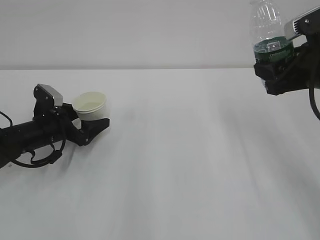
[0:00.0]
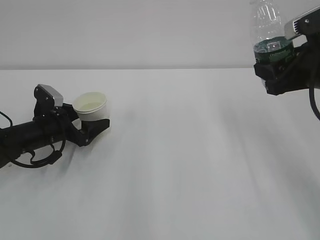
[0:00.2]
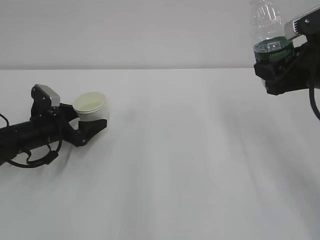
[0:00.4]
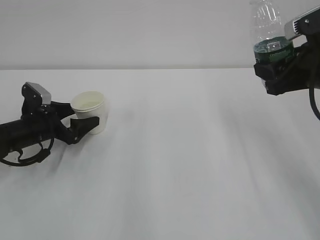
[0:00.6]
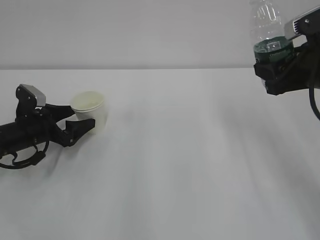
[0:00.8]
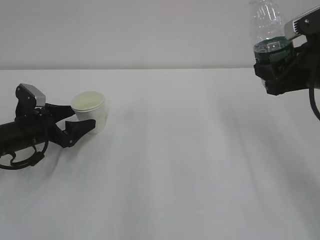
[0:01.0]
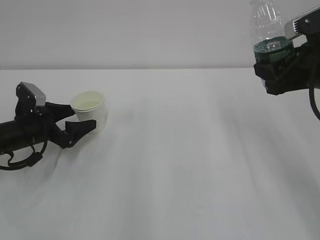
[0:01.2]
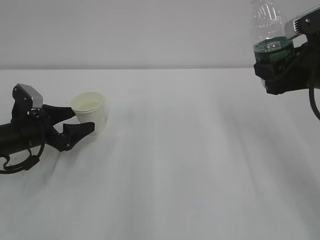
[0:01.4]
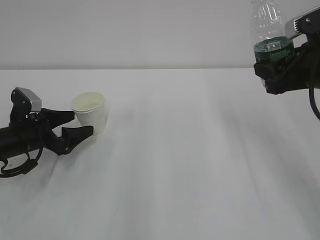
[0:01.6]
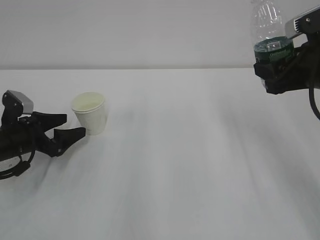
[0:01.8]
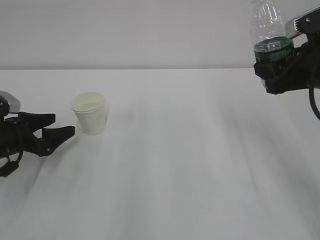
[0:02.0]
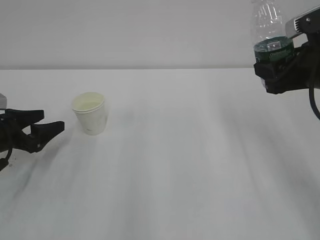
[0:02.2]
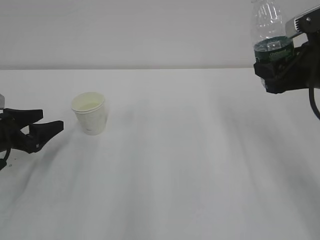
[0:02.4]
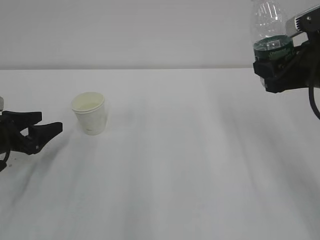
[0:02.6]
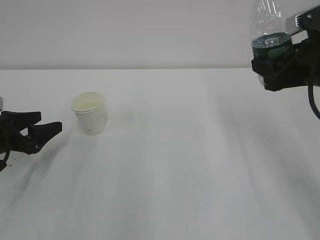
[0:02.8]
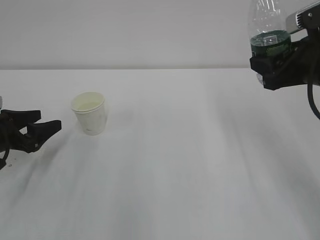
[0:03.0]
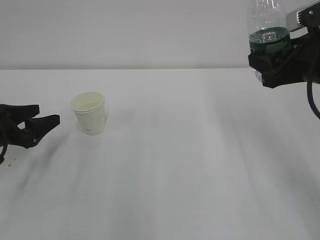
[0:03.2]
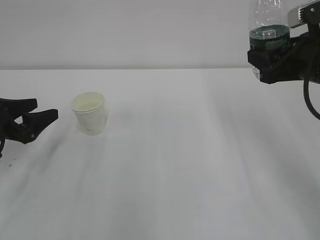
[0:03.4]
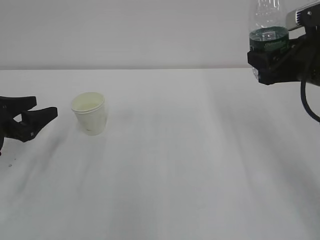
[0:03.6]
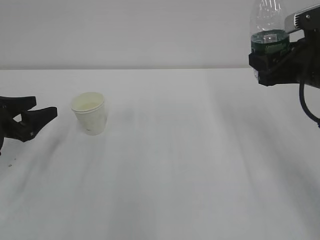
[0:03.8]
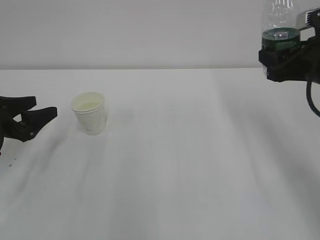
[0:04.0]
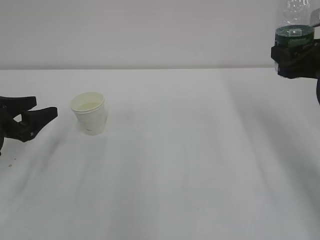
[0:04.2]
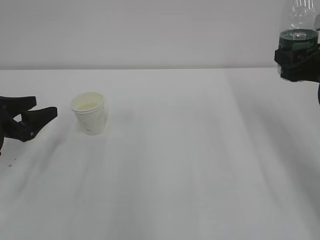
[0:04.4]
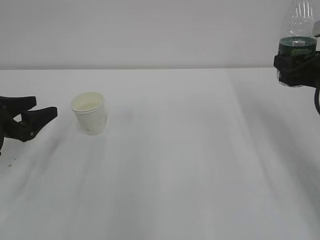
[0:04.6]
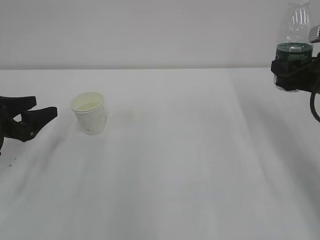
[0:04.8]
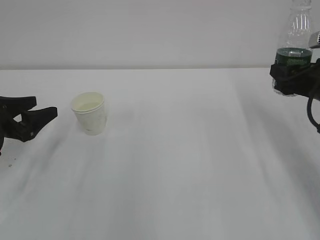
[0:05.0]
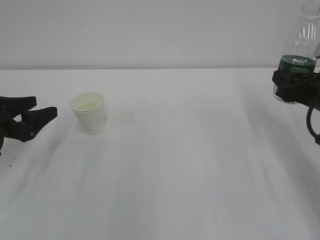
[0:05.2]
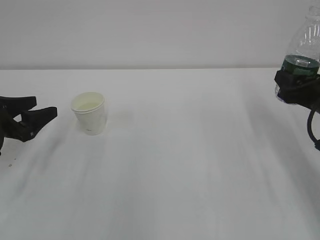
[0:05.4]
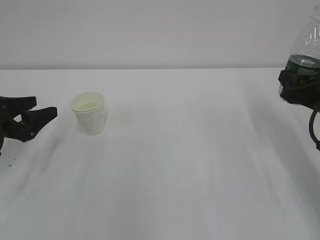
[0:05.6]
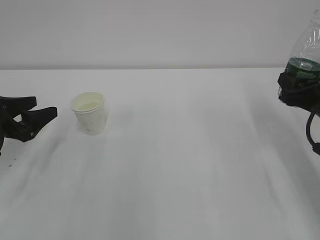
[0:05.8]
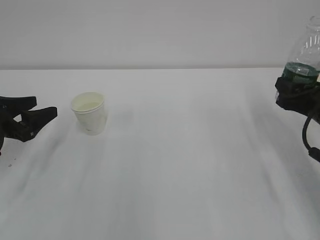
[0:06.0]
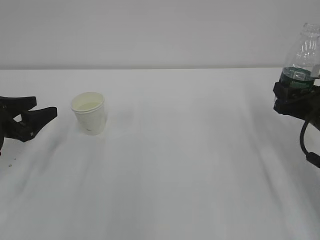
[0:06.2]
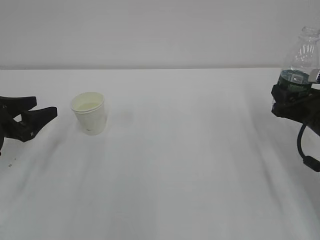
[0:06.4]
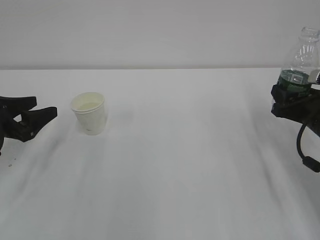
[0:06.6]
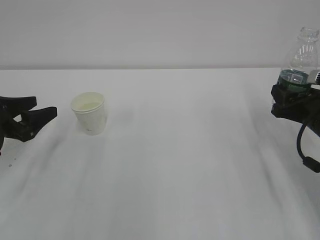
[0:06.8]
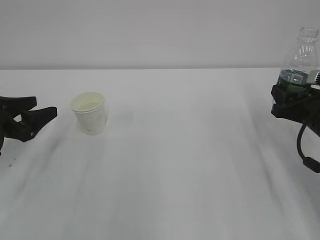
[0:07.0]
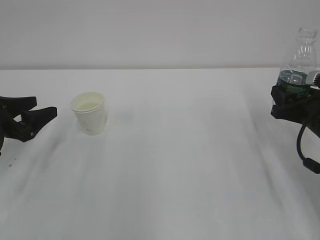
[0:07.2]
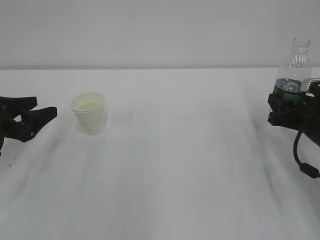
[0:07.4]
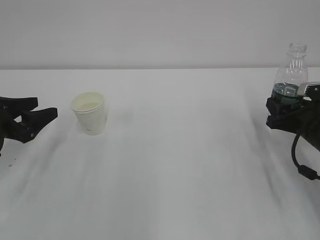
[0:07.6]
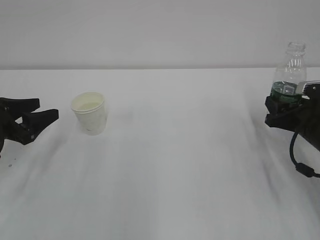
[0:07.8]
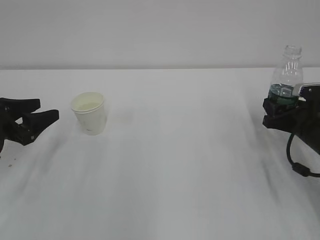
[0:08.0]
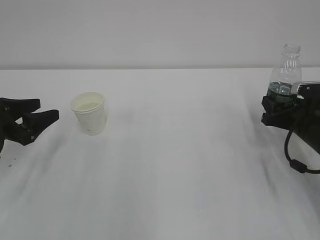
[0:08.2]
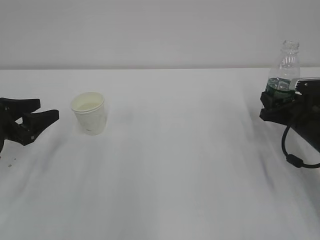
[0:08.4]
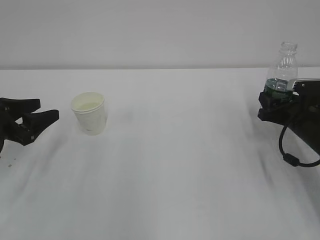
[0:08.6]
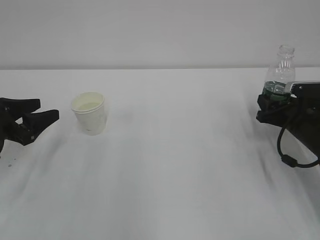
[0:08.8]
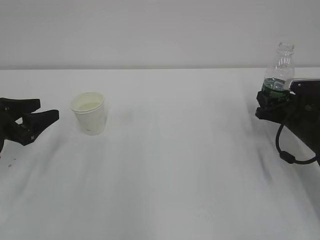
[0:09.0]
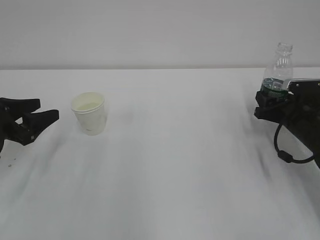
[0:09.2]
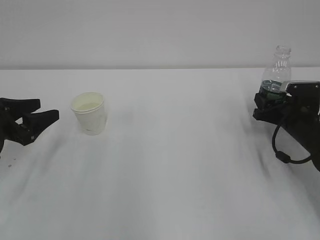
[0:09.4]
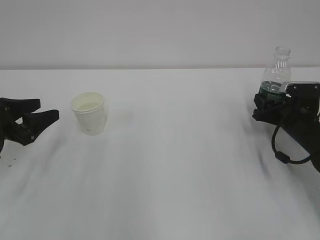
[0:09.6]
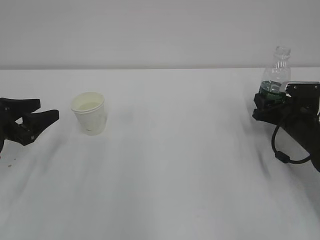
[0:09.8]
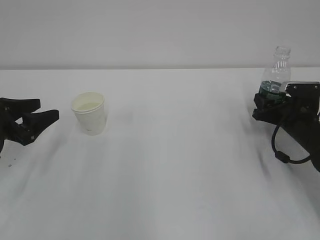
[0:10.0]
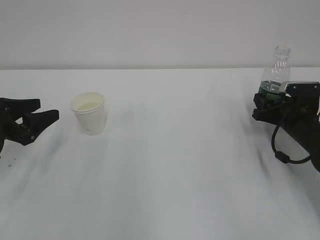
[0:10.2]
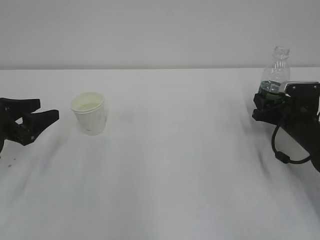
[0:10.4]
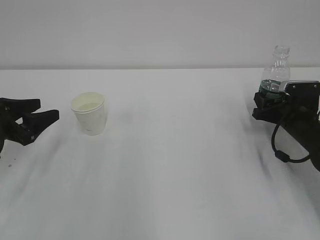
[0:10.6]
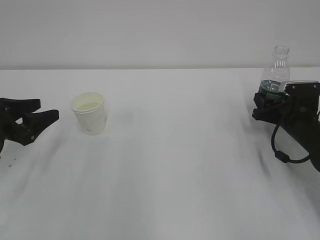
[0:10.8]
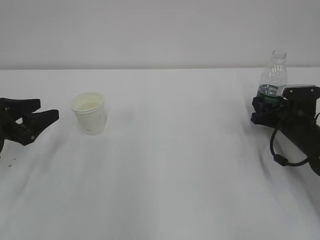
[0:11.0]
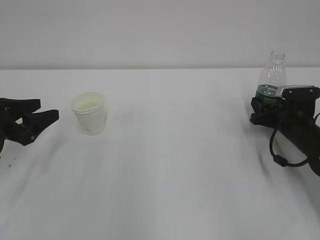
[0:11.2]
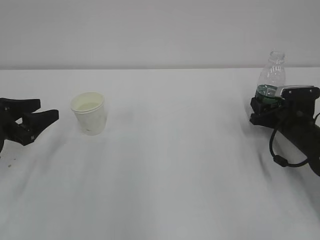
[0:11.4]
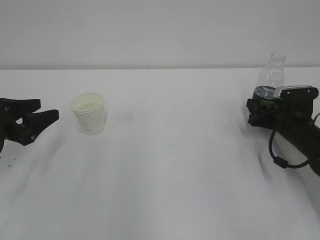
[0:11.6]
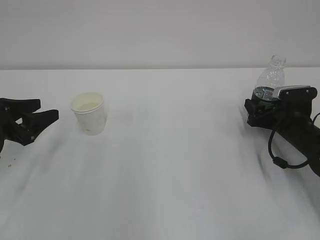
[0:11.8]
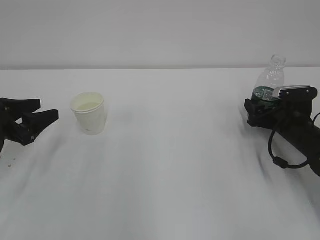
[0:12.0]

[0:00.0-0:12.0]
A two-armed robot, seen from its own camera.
0:00.0 to 0:01.6: The grippers move only a little.
0:01.6 to 0:03.0: The left gripper ends up some 5 cm from where it was.
0:03.0 to 0:04.4: The right gripper changes place by some 5 cm.
0:04.4 to 0:06.0: The right gripper shifts about 10 cm downward.
0:06.0 to 0:07.6: The grippers stay close to where they were, moving slightly.
0:07.6 to 0:09.0: The right gripper shifts by roughly 5 cm.
0:09.0 to 0:10.4: The grippers move only a little.
0:10.4 to 0:12.0: The right gripper opens its fingers.

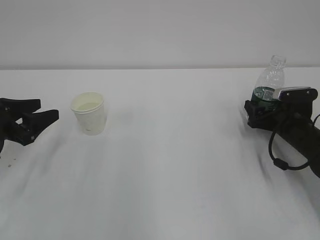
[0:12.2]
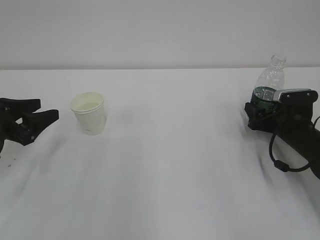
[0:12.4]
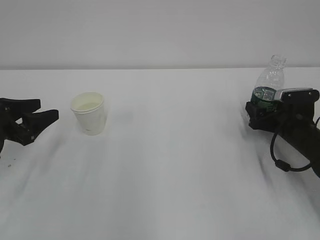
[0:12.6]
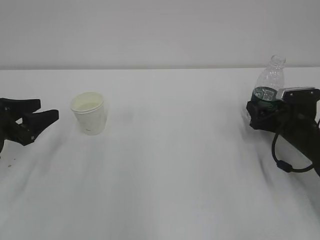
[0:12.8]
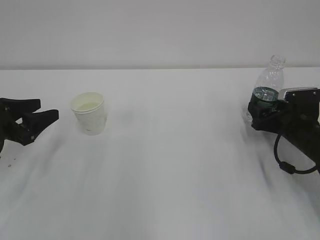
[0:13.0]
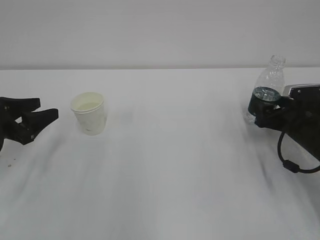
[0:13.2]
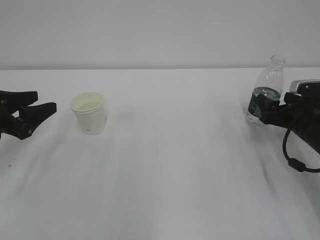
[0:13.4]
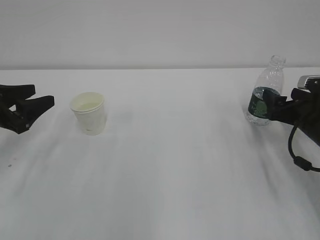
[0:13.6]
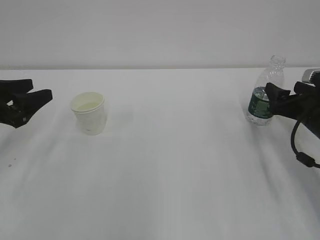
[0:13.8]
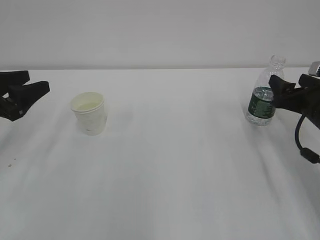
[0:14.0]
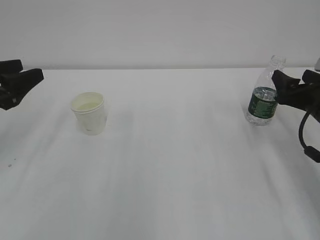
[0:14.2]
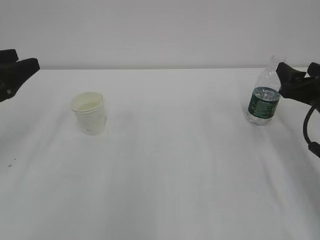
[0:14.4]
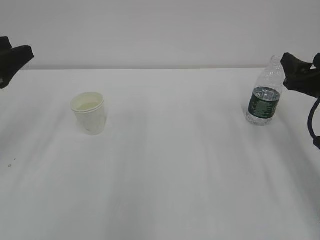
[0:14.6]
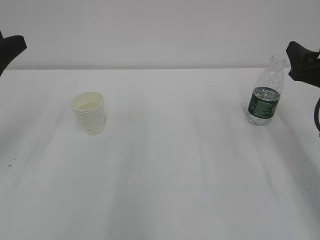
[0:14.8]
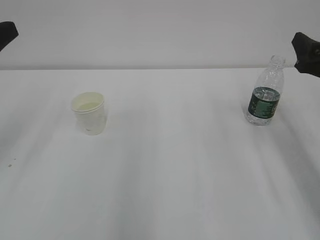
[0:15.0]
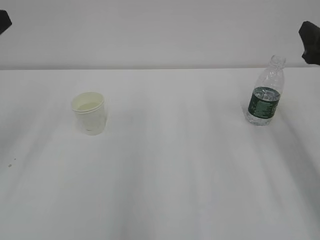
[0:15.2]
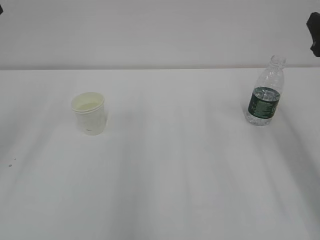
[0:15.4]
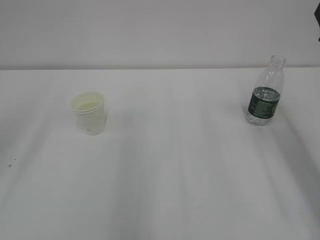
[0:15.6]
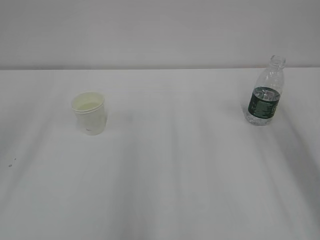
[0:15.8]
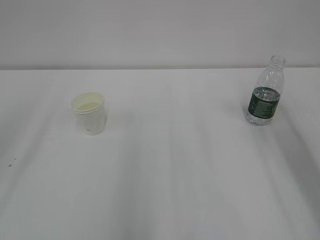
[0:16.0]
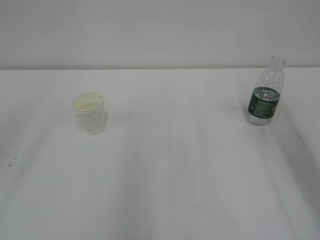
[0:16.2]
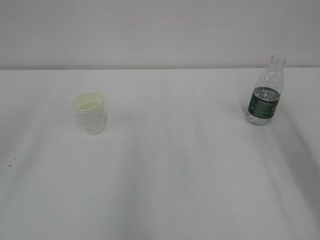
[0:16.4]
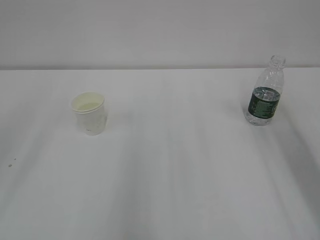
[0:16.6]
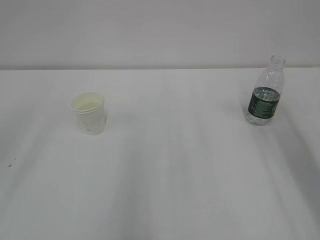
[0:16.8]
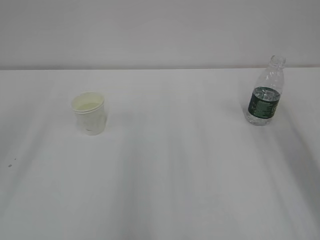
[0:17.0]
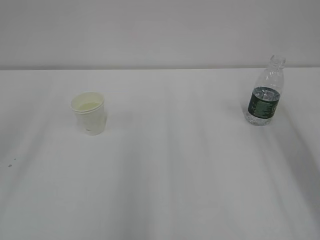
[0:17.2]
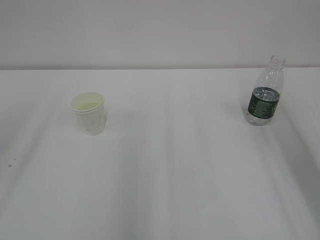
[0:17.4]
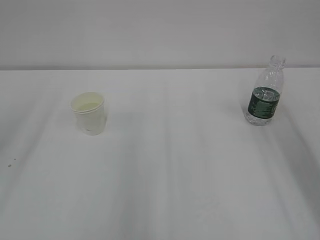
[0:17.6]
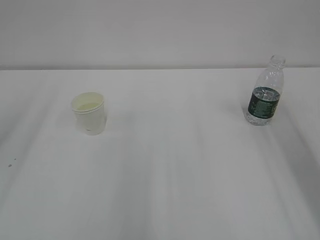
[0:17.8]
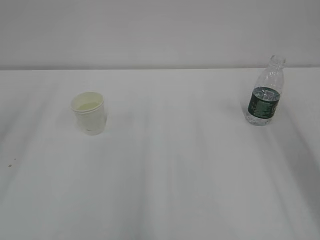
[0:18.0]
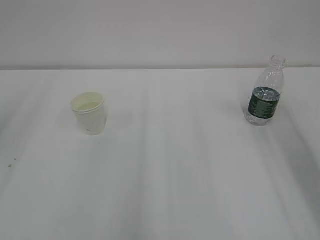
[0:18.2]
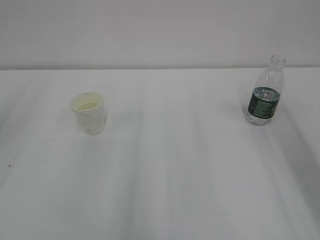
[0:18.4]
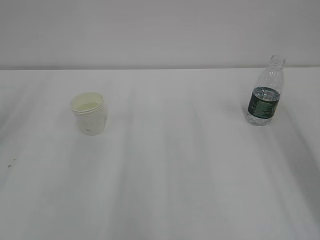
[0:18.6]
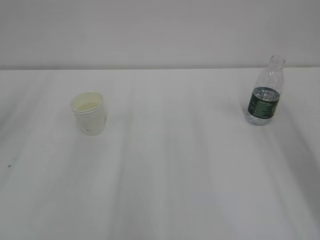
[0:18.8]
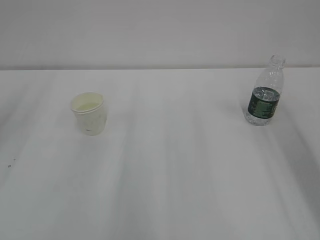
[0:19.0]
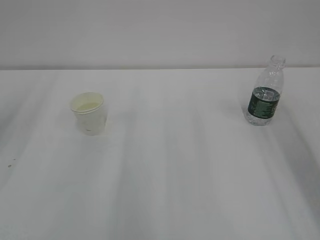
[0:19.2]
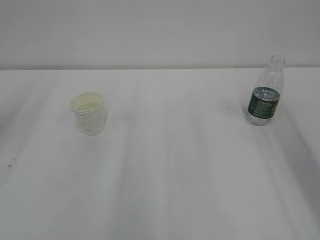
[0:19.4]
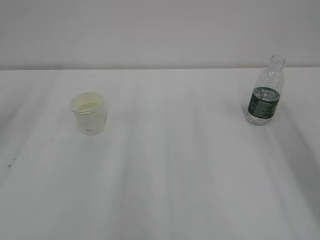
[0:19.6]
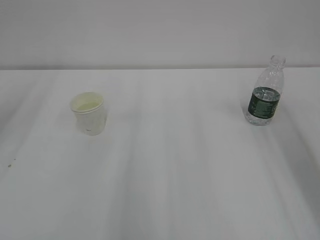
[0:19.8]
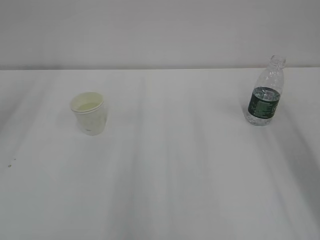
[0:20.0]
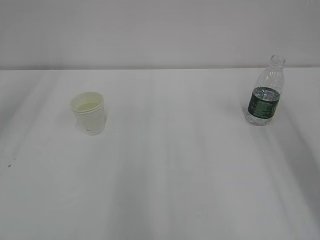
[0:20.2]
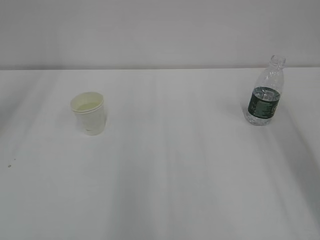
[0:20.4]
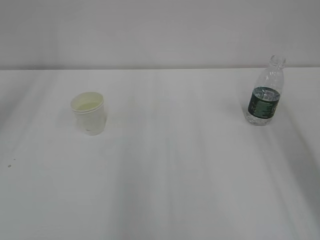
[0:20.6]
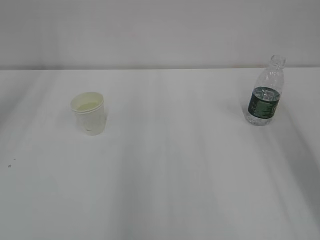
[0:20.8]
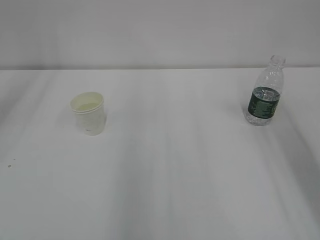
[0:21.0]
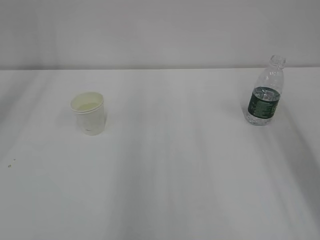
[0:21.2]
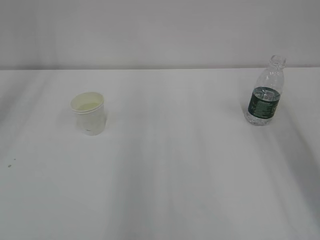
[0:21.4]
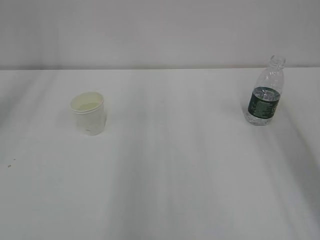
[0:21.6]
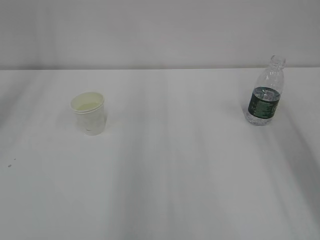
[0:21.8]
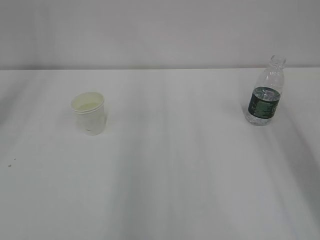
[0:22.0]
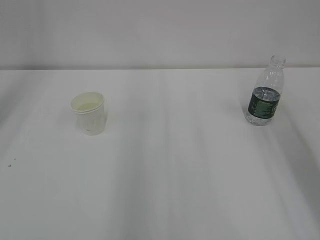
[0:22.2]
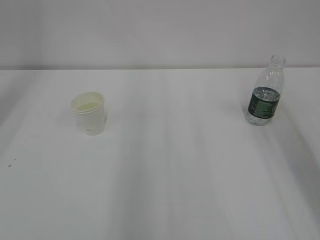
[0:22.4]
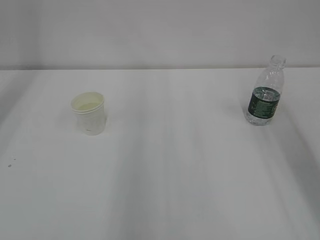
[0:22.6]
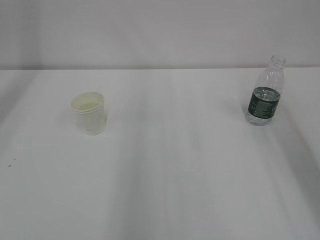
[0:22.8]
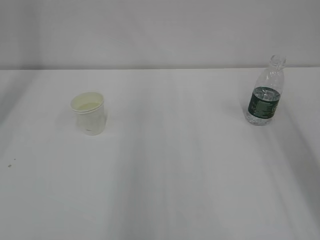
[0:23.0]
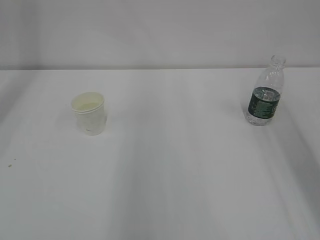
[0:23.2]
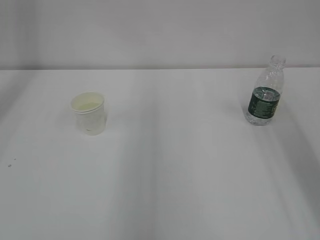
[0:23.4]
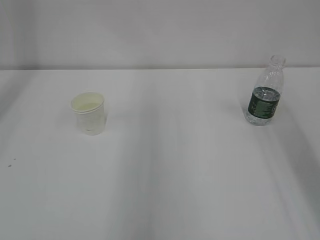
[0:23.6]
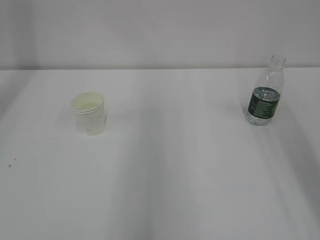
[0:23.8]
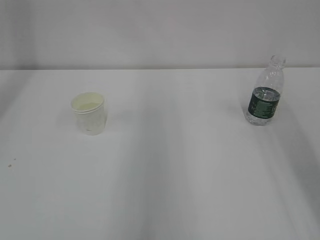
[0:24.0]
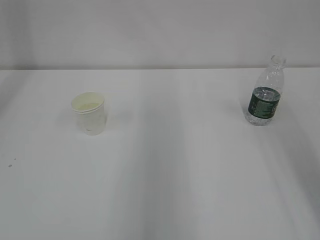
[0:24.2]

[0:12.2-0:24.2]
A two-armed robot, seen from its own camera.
0:12.2 to 0:13.8: The right gripper heads upward, covering roughly 5 cm.
0:13.8 to 0:15.2: The two grippers go some 10 cm upward.
0:15.2 to 0:16.6: The right gripper goes roughly 10 cm upward and backward.
